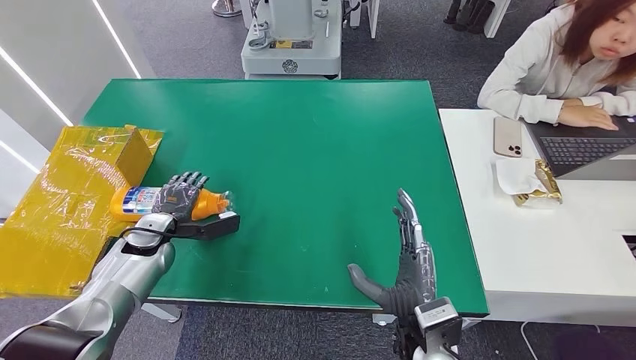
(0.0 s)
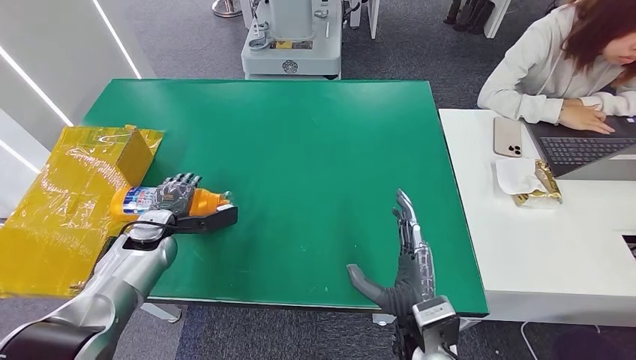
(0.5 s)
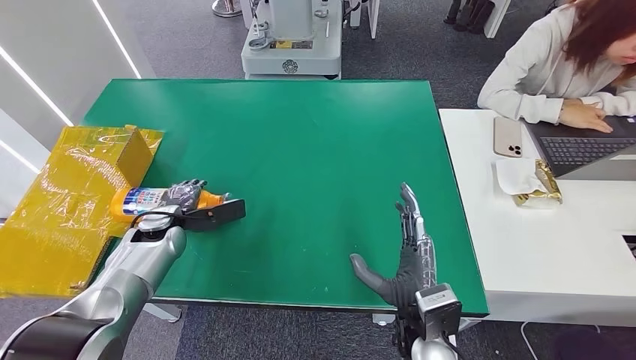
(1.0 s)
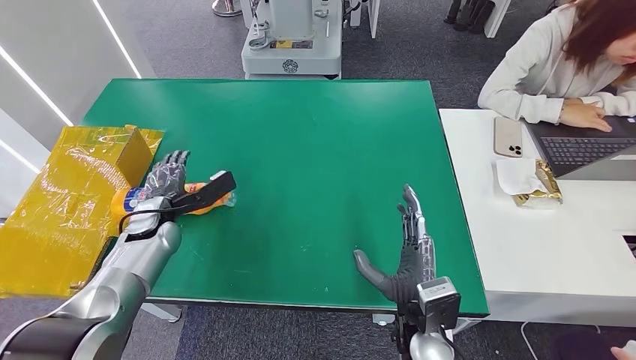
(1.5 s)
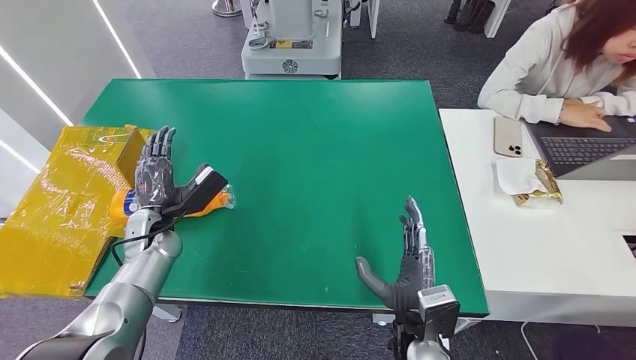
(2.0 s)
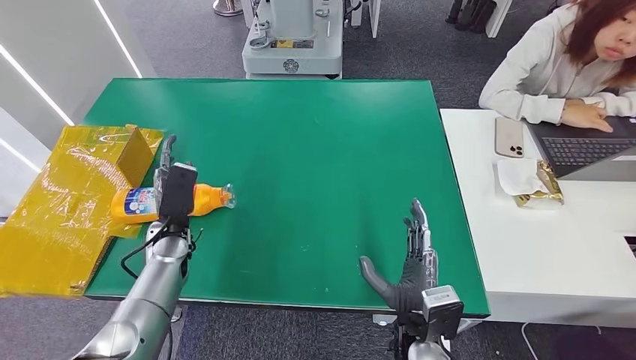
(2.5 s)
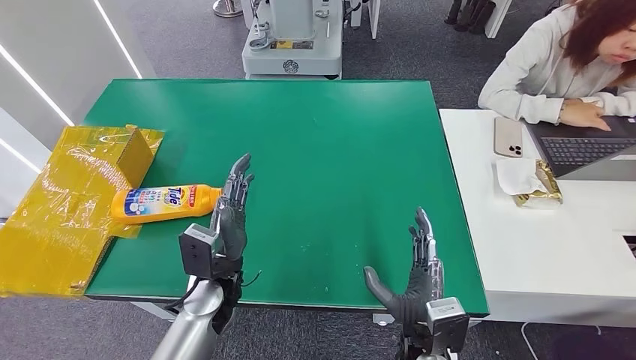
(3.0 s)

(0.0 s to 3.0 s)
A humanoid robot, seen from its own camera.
Step, 0.0 s - 3.0 s: Turn the bottle to the front side.
1.5 s - 3.0 s: The left hand goes about 20 cm to the right and backward.

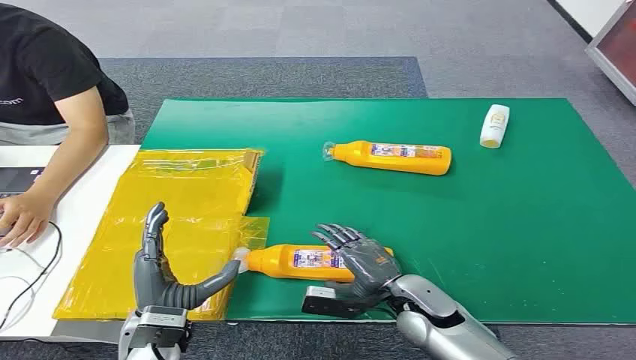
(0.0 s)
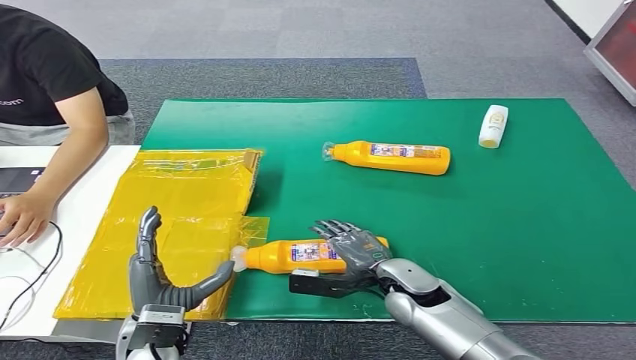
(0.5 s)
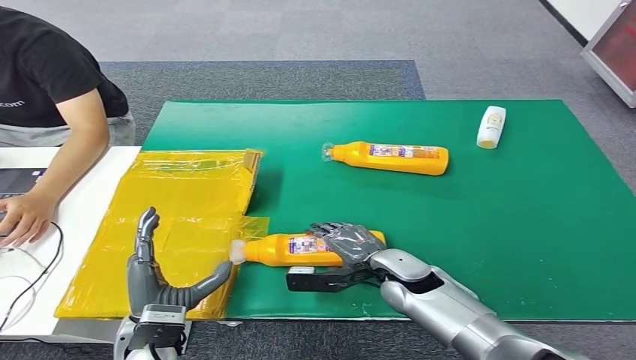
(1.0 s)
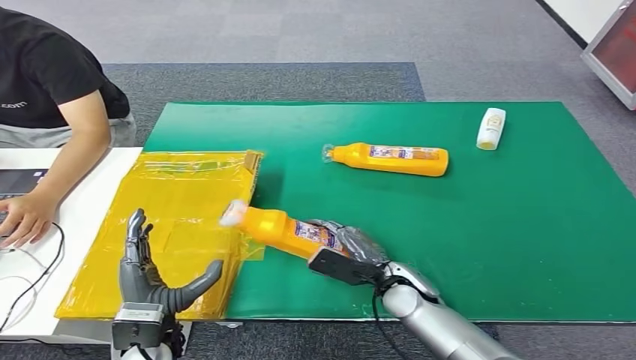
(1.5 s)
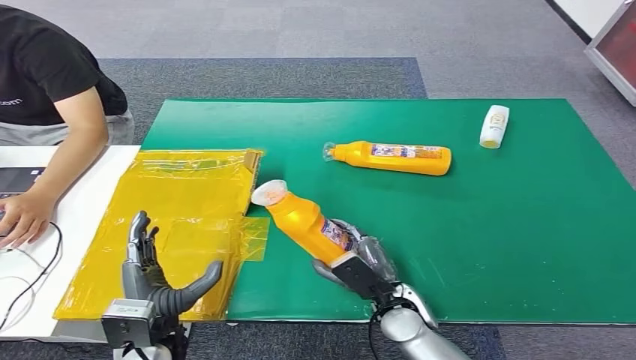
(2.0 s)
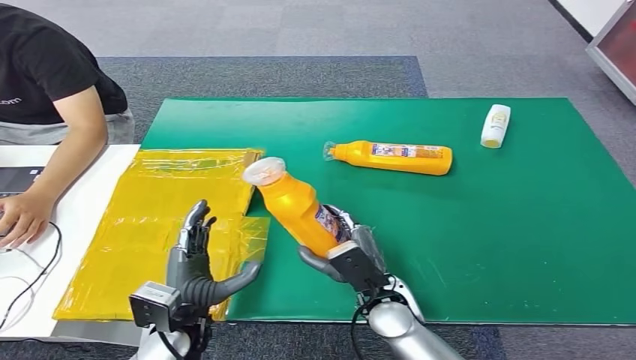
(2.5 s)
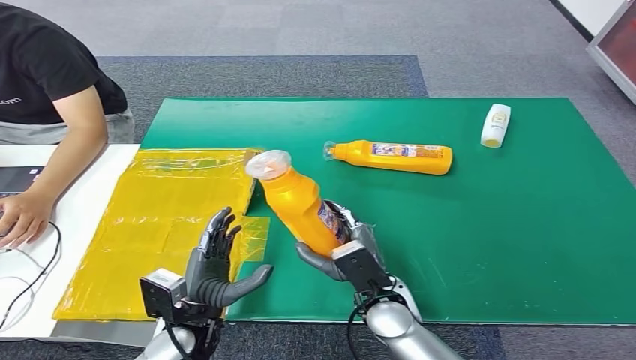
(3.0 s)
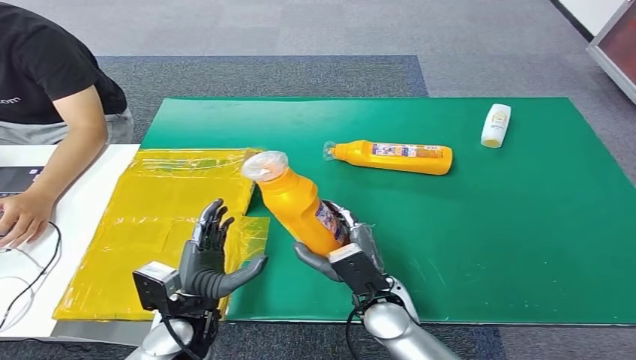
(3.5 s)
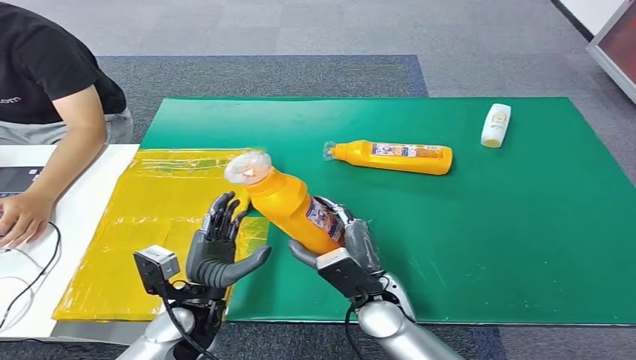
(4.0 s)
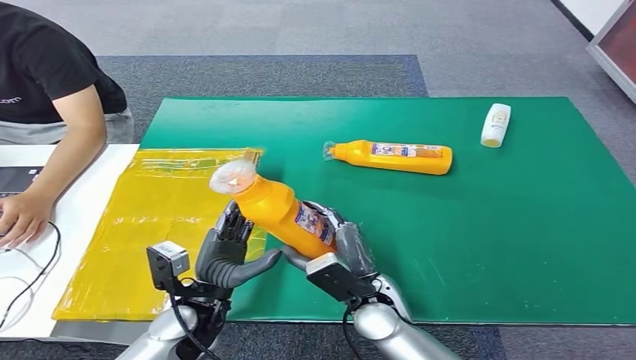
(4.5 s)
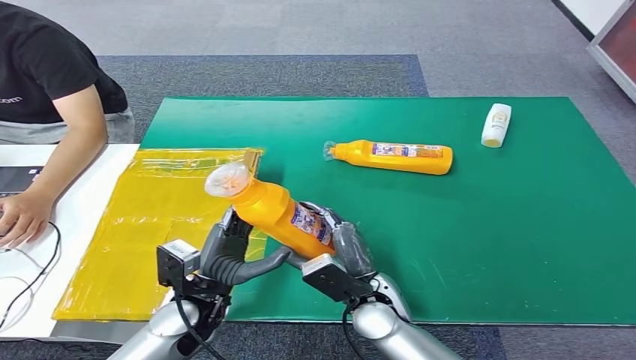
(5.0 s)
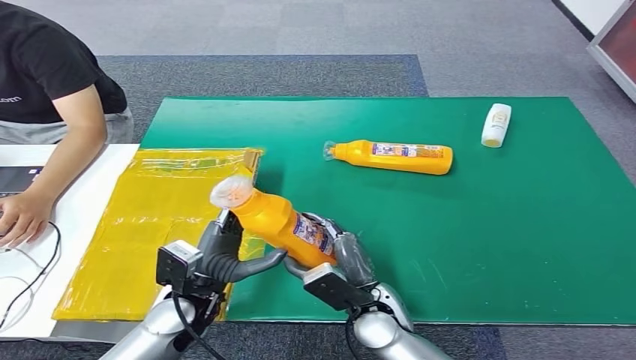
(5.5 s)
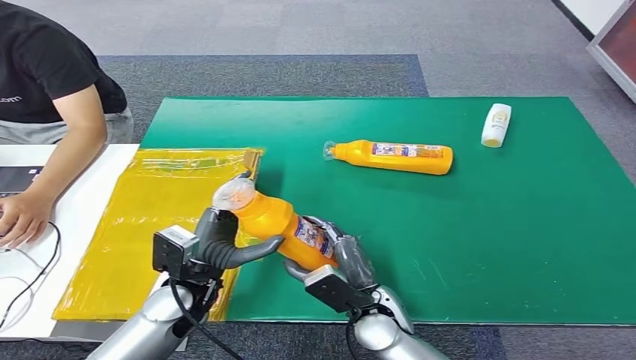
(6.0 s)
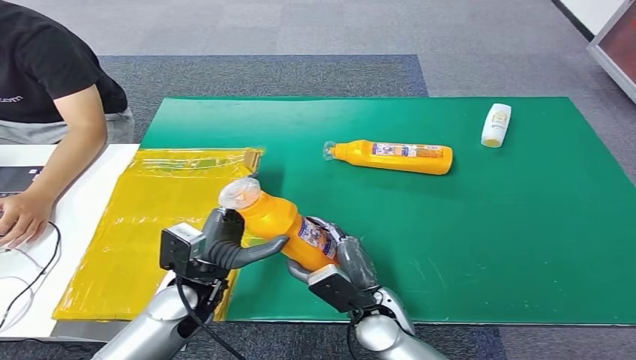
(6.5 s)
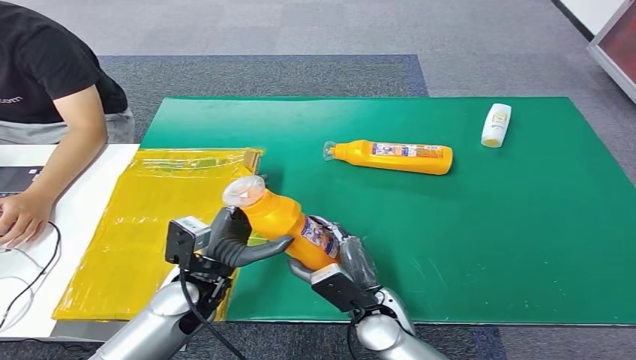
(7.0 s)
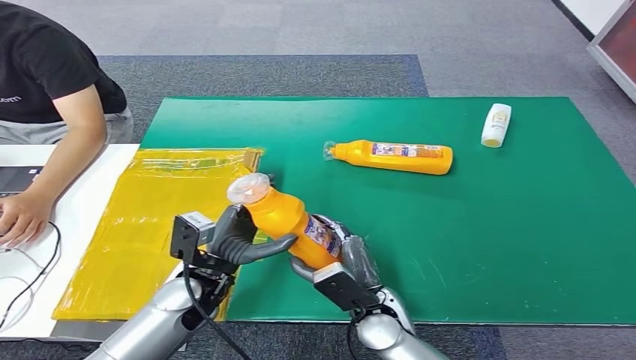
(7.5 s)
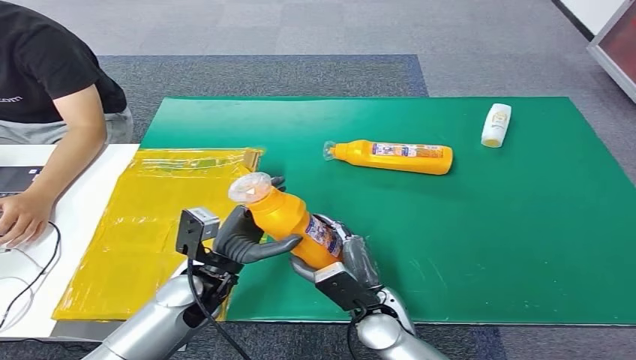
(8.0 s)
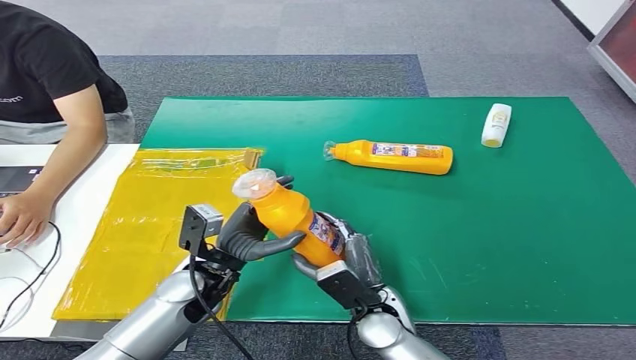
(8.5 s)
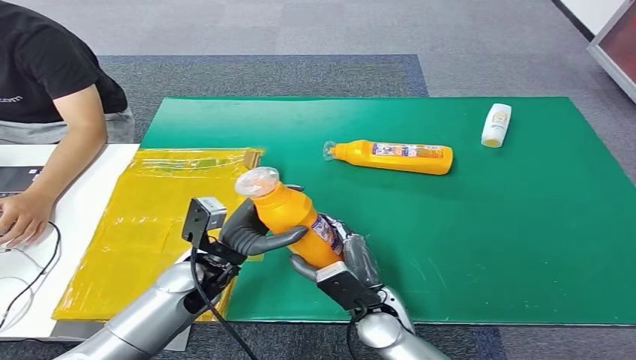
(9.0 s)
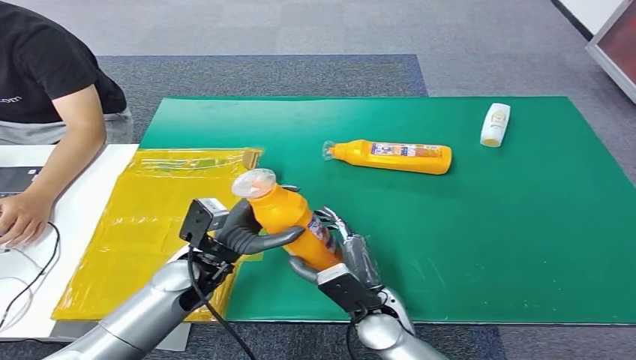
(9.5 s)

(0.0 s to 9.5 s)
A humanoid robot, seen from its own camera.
Step, 0.0 s - 2.0 s: Pick up the bottle from the table.
2.0 s - 4.0 s: The right hand changes place by approximately 5 cm. The left hand changes place by roughly 5 cm.
4.0 s - 7.5 s: There are only small adjustments of the hands.
7.5 s - 9.5 s: There are only small adjustments of the hands.

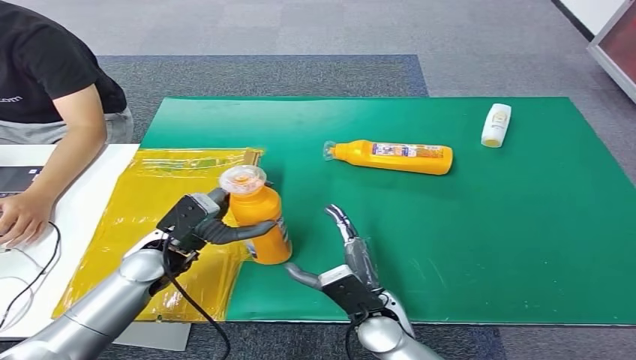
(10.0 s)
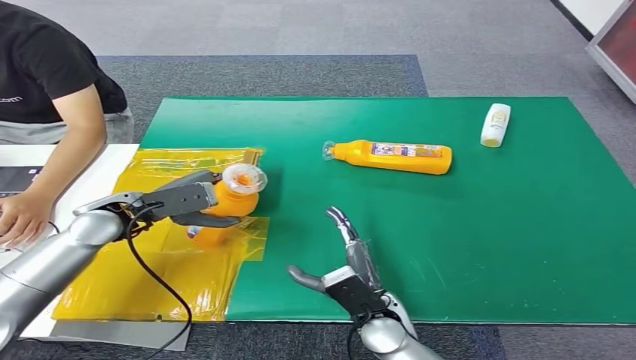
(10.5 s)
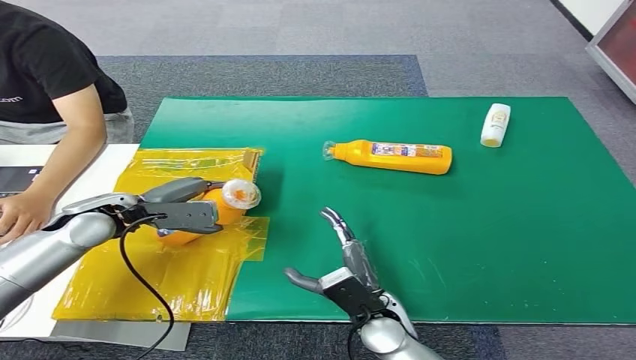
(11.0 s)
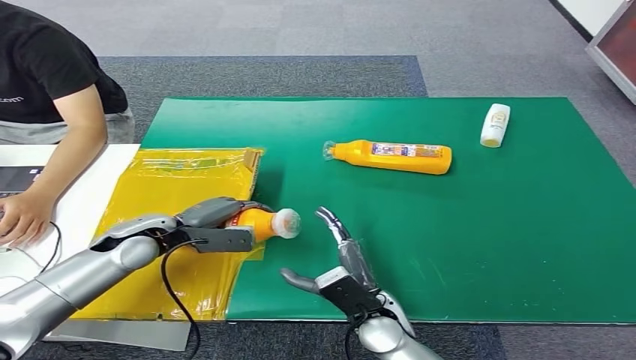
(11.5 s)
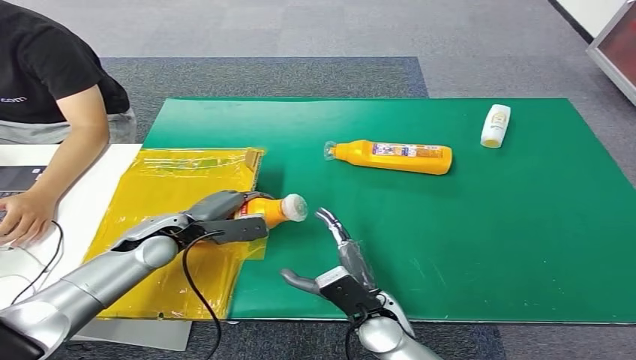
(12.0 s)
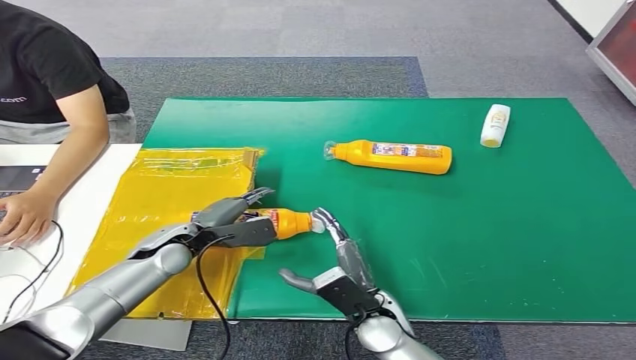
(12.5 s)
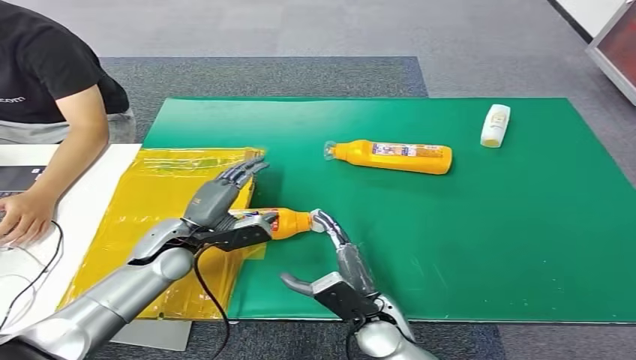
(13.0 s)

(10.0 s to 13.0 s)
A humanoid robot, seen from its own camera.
Step, 10.0 s - 12.5 s: Turn the bottle to the front side.
11.5 s - 13.0 s: The left hand moves approximately 5 cm.
